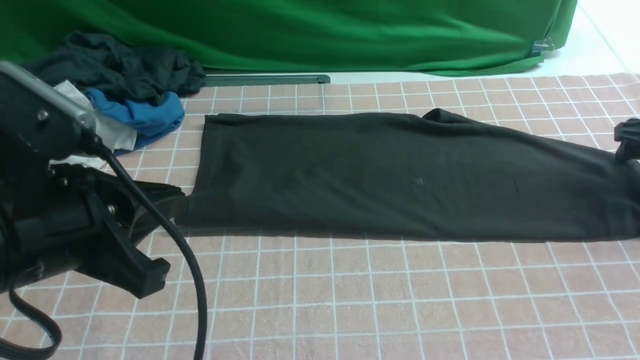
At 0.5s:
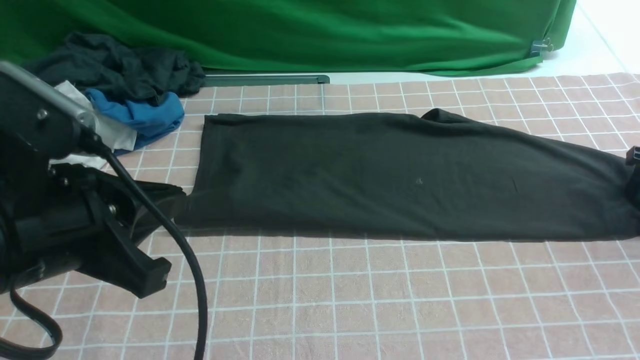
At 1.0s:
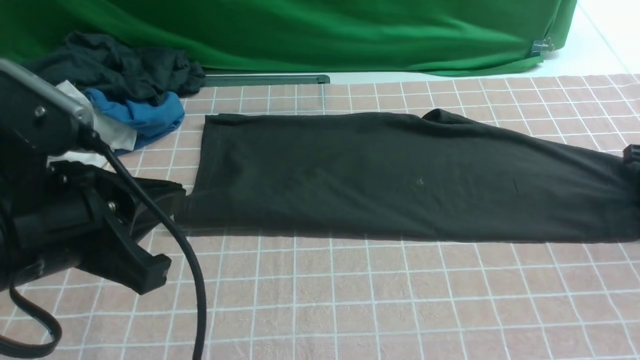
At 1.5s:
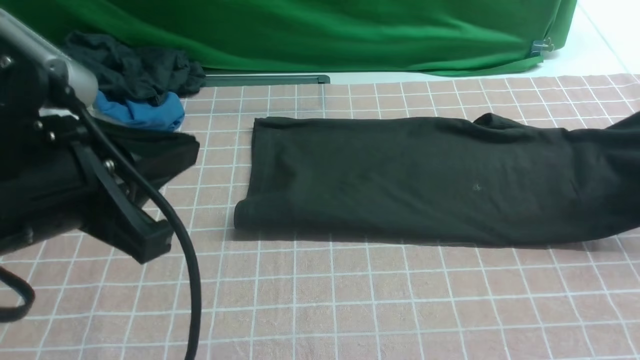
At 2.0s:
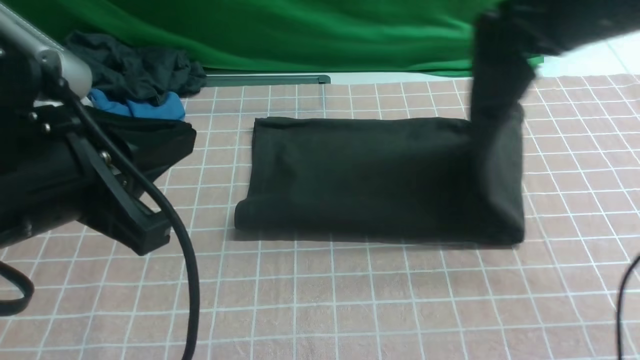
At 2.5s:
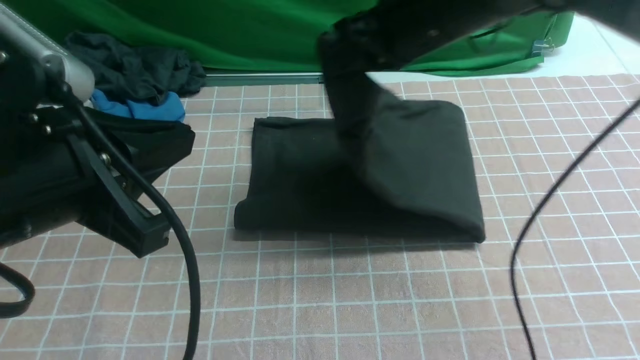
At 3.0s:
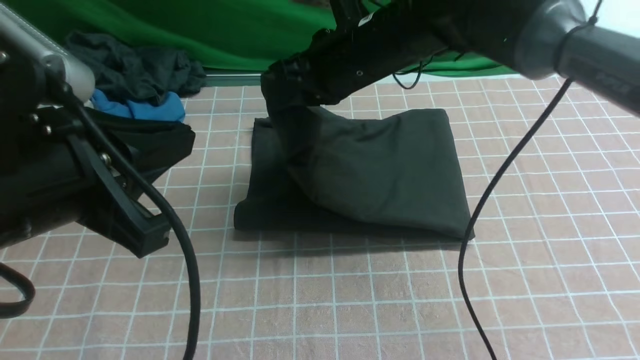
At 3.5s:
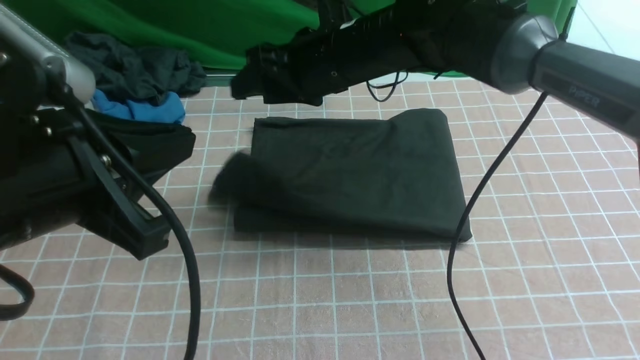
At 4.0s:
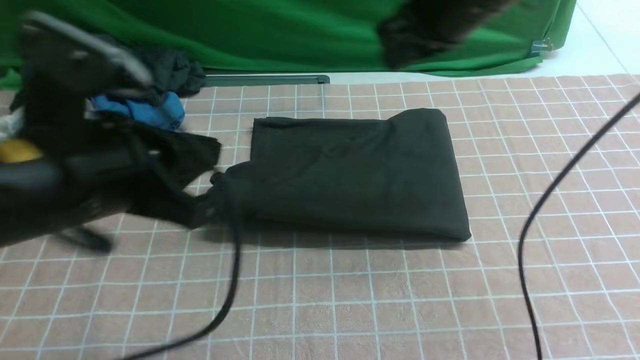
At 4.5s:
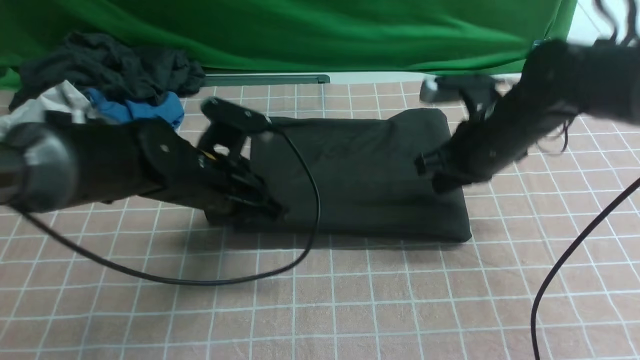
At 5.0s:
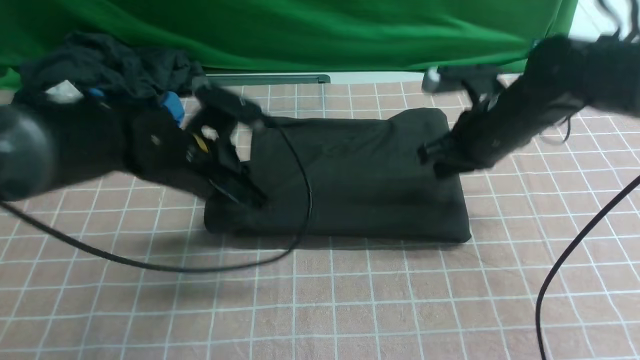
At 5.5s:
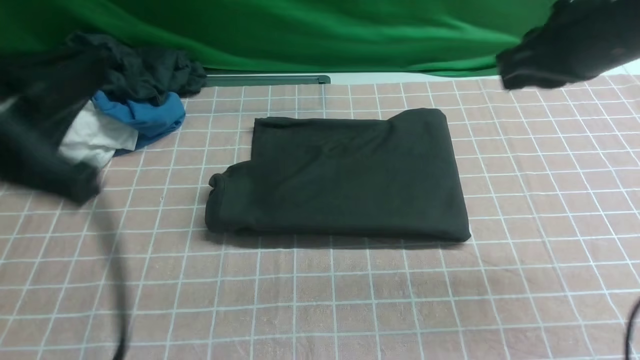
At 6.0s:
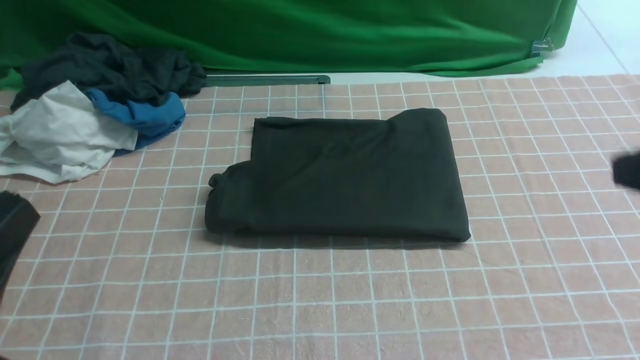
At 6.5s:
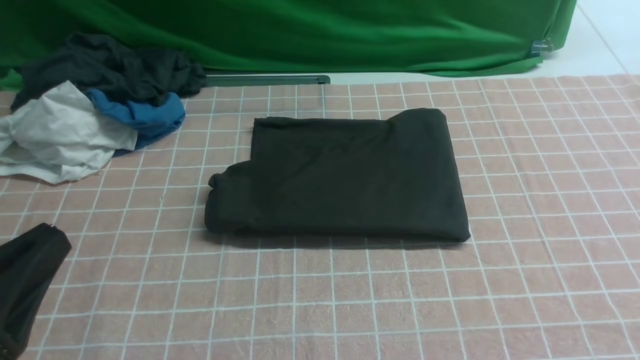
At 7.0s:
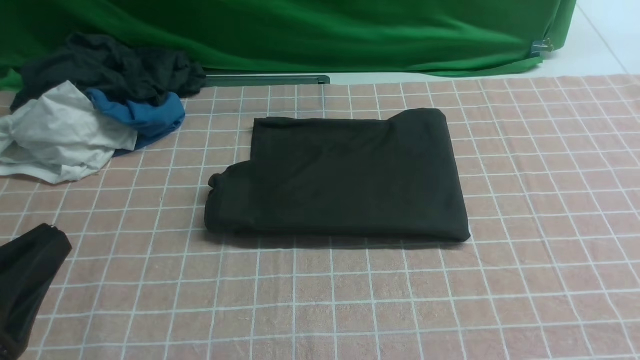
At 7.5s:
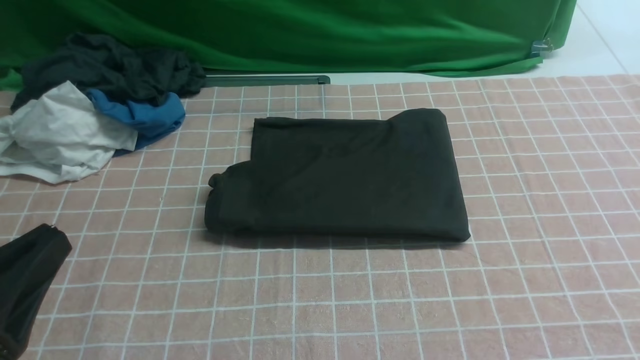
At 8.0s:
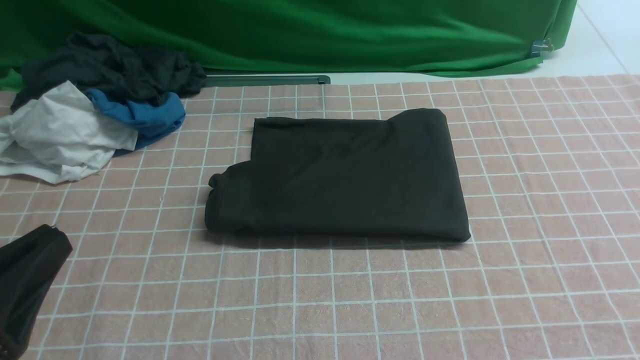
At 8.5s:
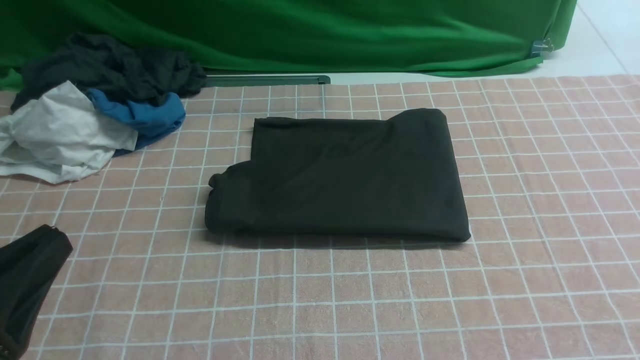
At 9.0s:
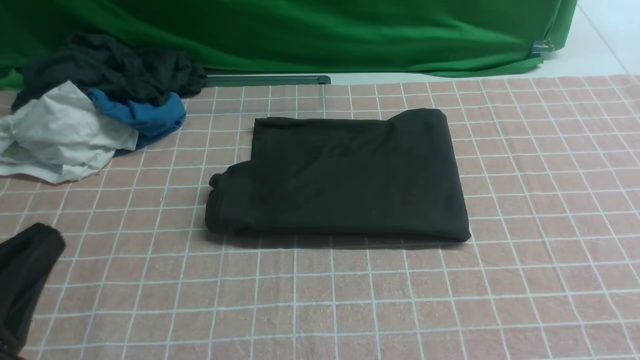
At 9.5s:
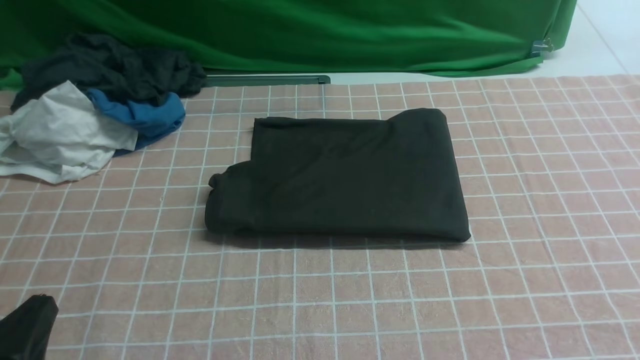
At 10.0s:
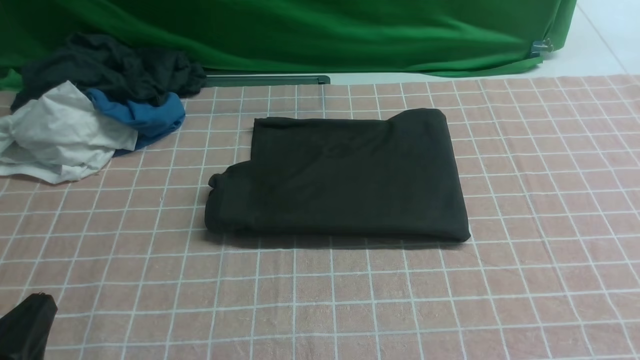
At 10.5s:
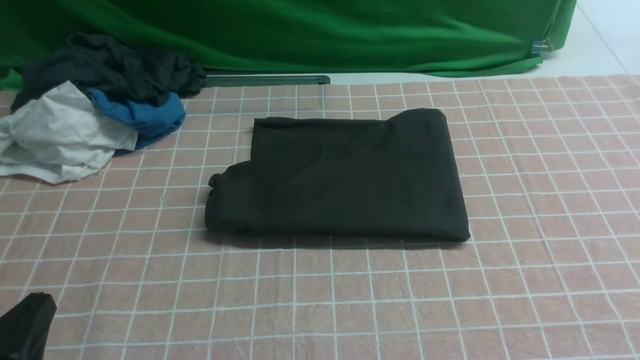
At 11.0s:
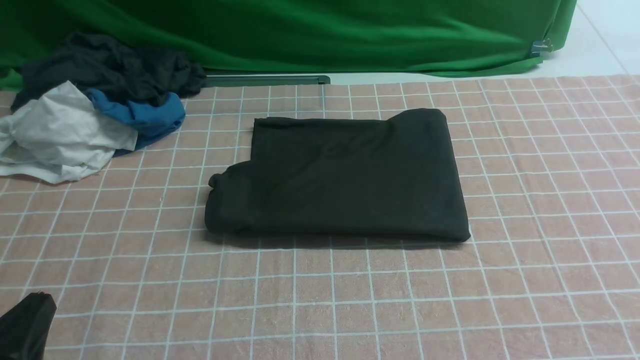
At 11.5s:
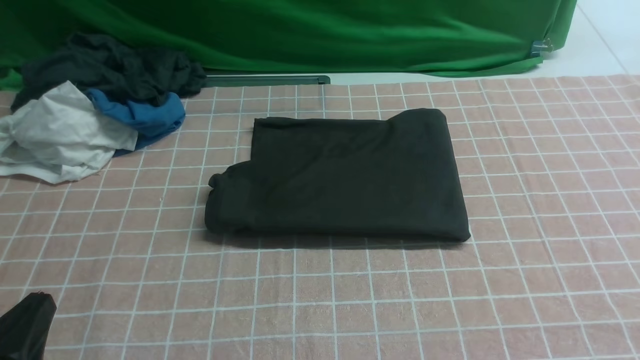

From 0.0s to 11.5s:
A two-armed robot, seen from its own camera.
Step, from 1.0s to 3.5s: use the right arm to drag the right edge of the fabric to the left and folds it over the left edge.
From 0.0s to 2.0s: The right gripper goes some 25 cm to the left and upward, and closes up.
From 2.0s to 4.0s: The right gripper moves to the left, about 10 cm, and opens and closes again. Meanwhile the left gripper shifts roughly 5 cm forward.
From 4.0s to 6.0s: The left gripper heads backward and to the left, covering about 15 cm. Meanwhile the right gripper heads backward and to the right, covering roughly 30 cm.
From 7.5s to 9.5s: The left gripper moves downward, some 10 cm.
From 9.5s to 11.5s: Both grippers stay put.

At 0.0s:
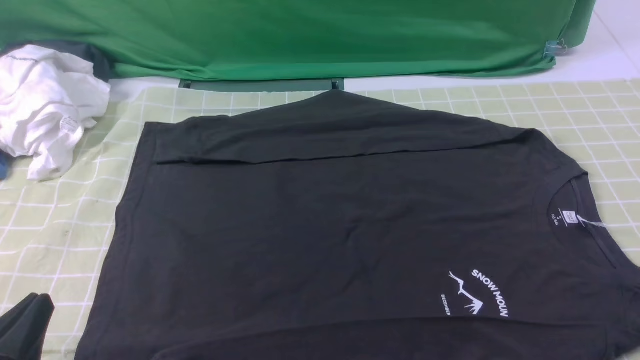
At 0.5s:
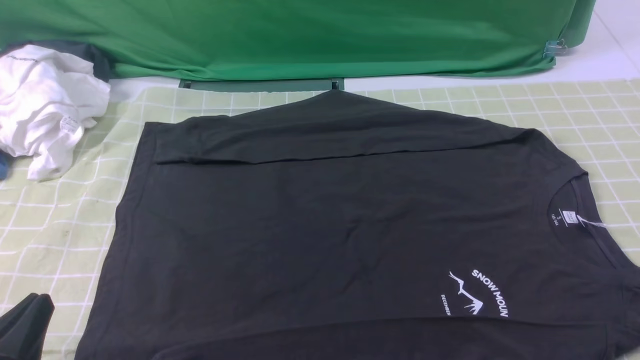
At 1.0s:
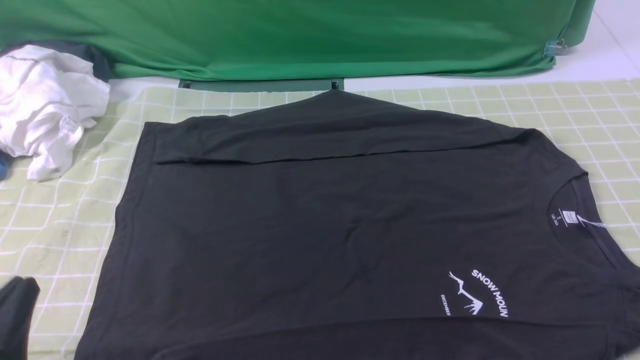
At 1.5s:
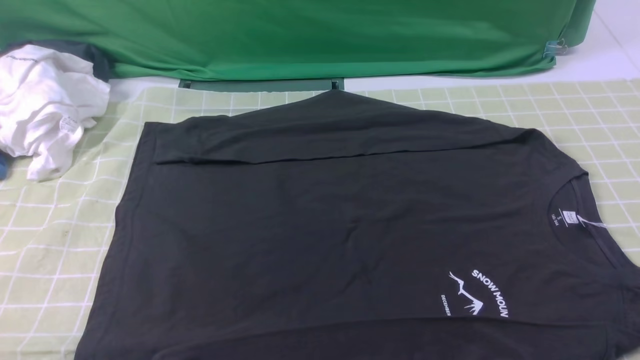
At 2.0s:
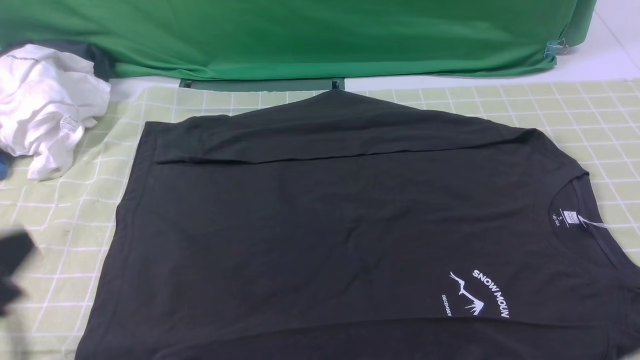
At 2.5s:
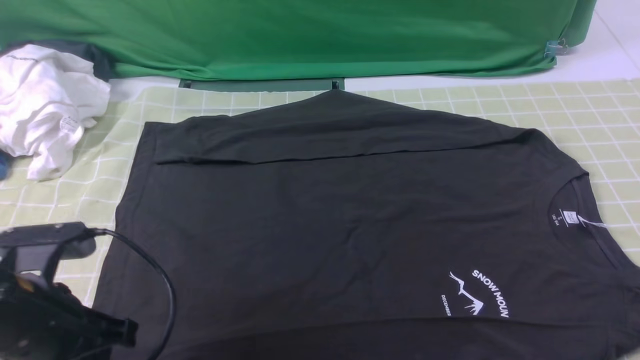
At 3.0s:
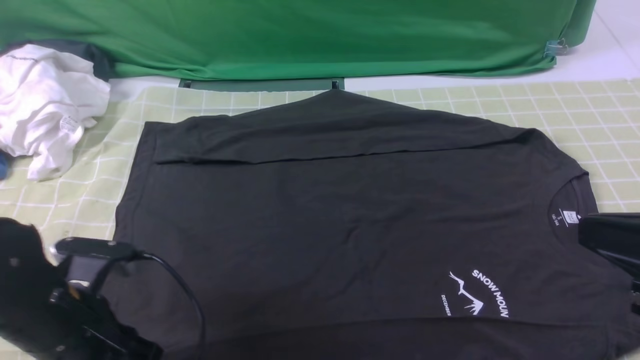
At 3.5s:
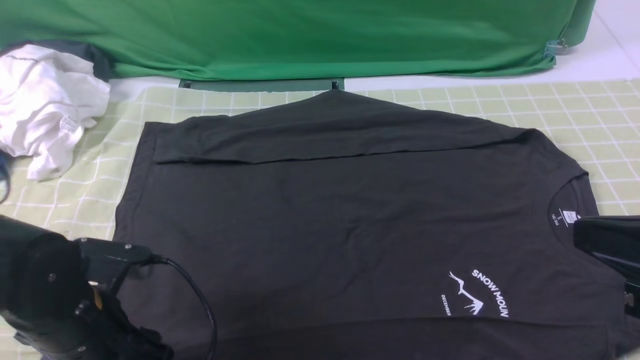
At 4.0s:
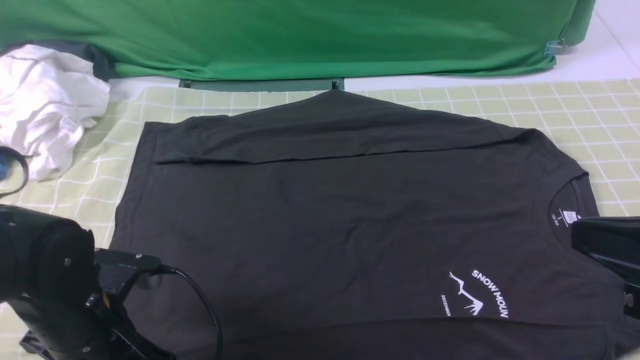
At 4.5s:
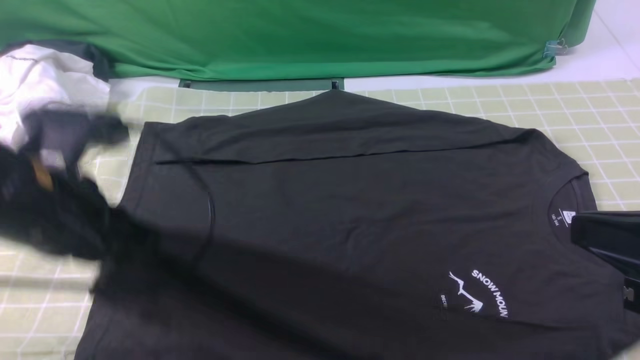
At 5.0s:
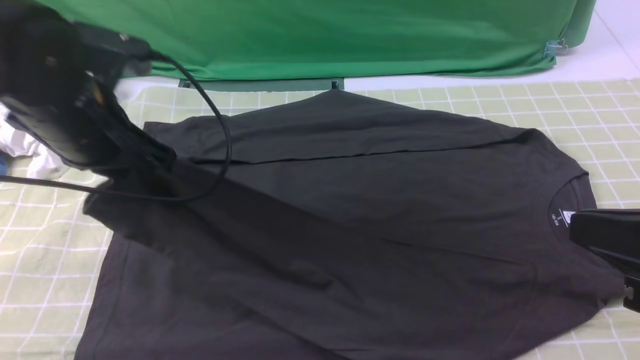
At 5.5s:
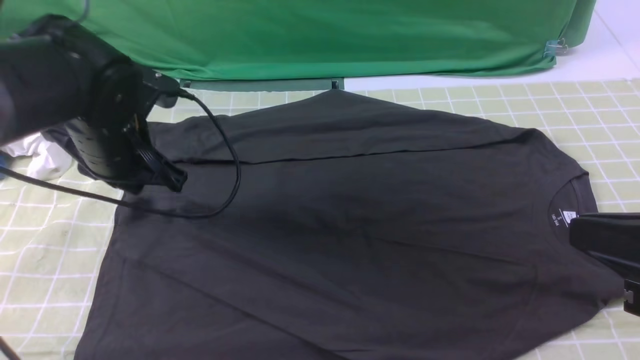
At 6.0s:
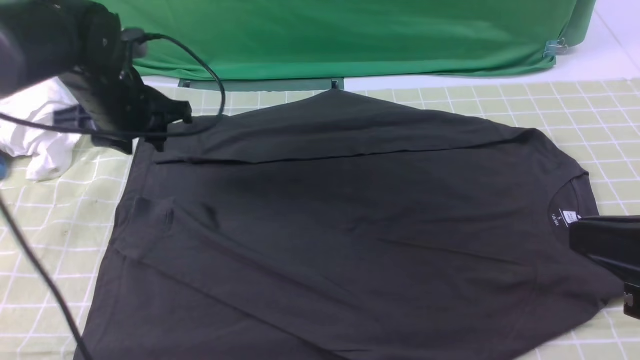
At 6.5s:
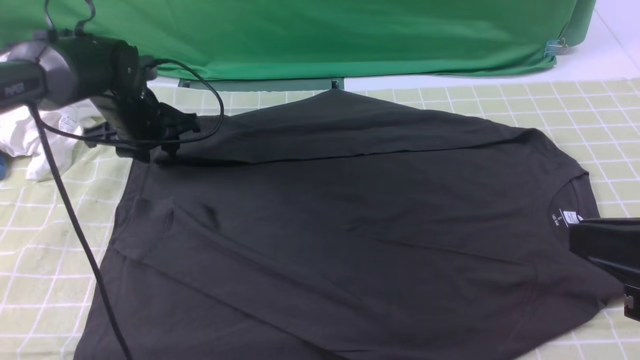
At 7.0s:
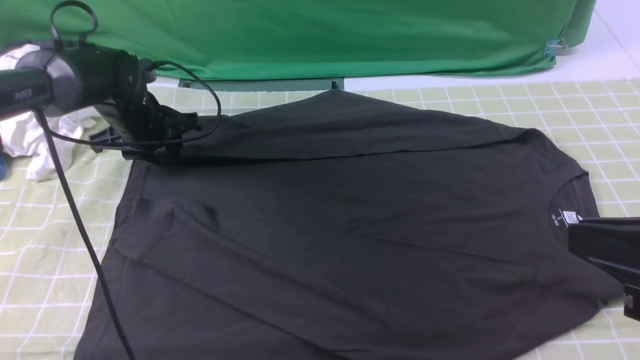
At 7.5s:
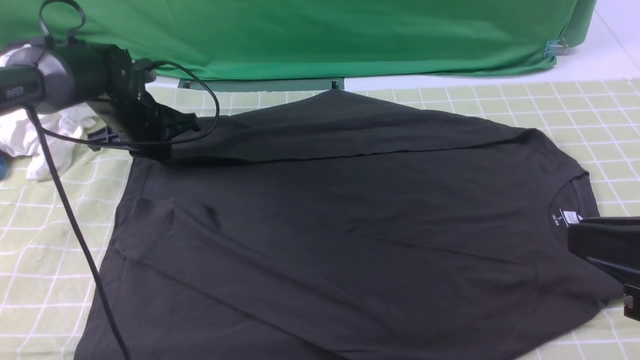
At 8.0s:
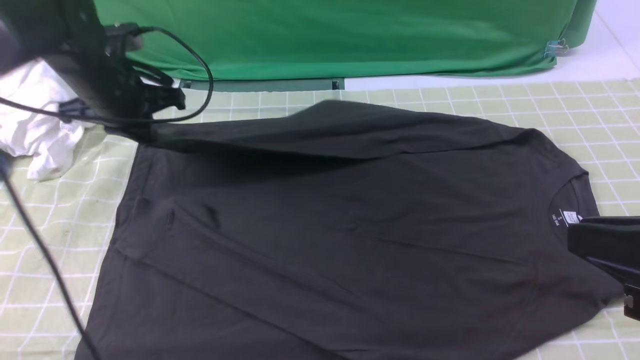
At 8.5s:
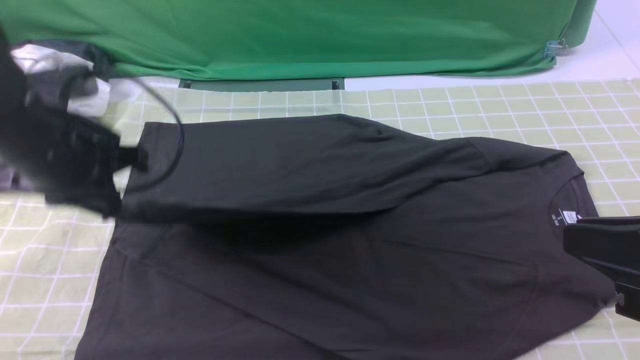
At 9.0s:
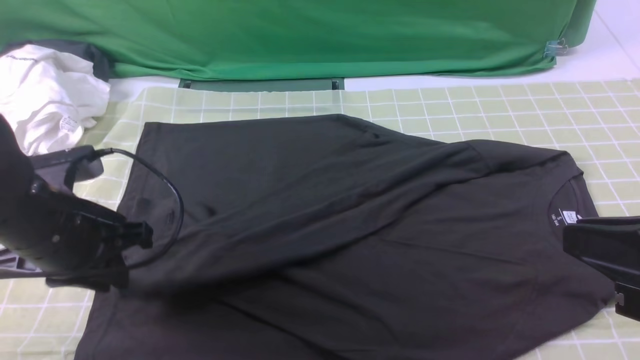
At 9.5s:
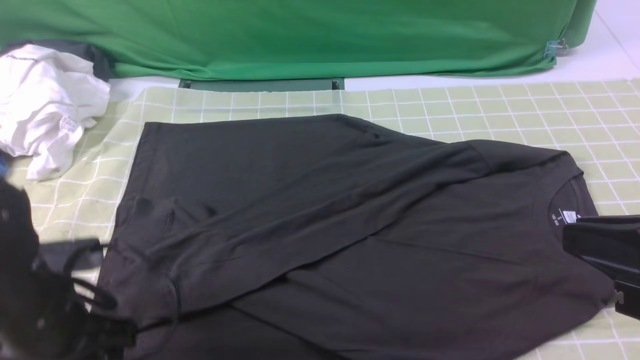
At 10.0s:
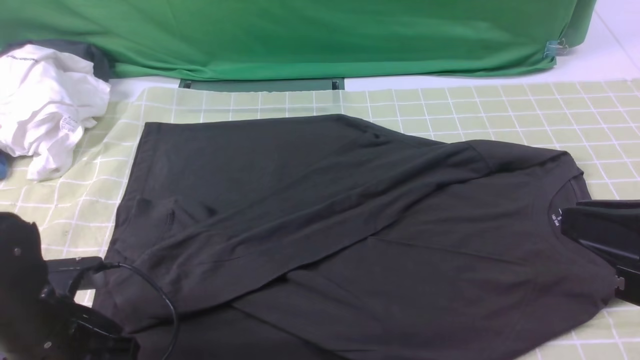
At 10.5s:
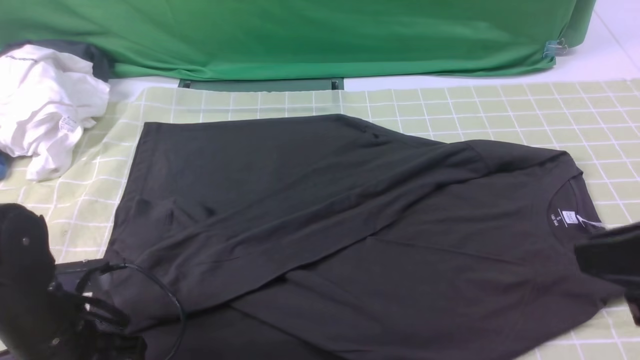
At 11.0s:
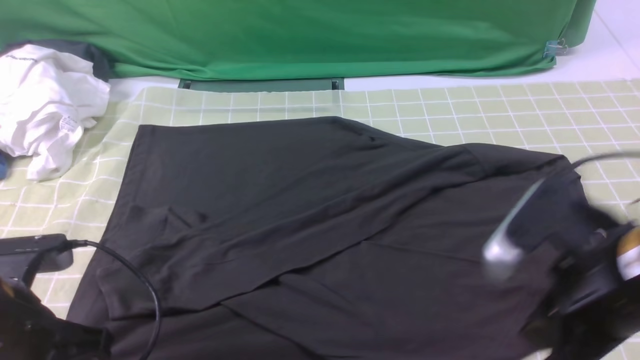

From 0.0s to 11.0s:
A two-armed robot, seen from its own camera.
Step, from 0.0s to 4.0s: use the left arm to clamp the cuff closest to it.
Step, from 4.5s to 5.5s: use the left arm to drag and place the cuff at the centered position on the left edge of the fabric.
Step, from 6.0s to 7.0s: use the left arm to clamp the cuff farthest from it.
Step, from 7.5s to 9.0s: use the left arm to drag and drop the cuff onto the cuff closest to the left arm.
From 0.0s to 2.0s: The left gripper is displaced upward by some 10 cm.
From 2.0s to 3.5s: The right gripper shifts some 10 cm to the left and forward, while the left gripper heads downward and forward, covering about 15 cm, and opens.
From 3.5s to 5.5s: The left gripper heads forward and upward, covering some 15 cm, and closes its fingers.
From 5.5s to 7.5s: The left gripper goes approximately 15 cm forward, downward and to the left.
From 7.5s to 9.0s: The left gripper shifts roughly 20 cm backward.
From 9.0s to 11.0s: The left gripper shifts approximately 10 cm backward, and closes up. Meanwhile the right gripper goes some 10 cm downward and to the left.
